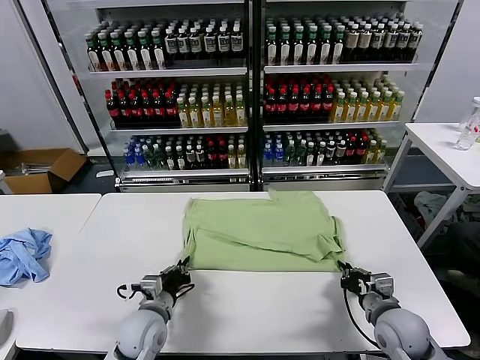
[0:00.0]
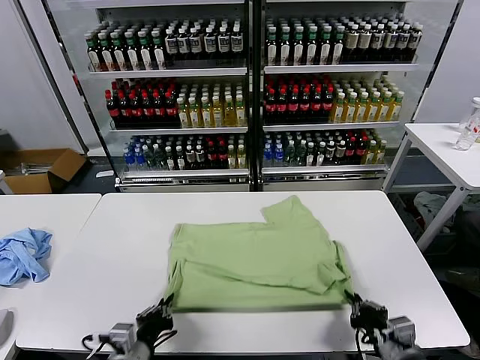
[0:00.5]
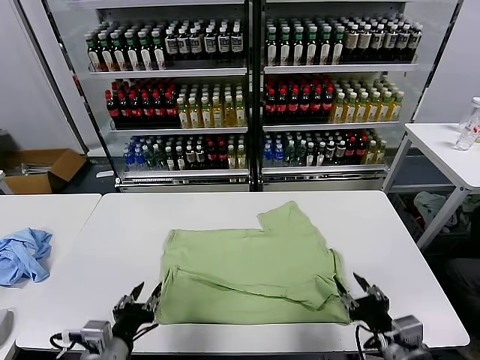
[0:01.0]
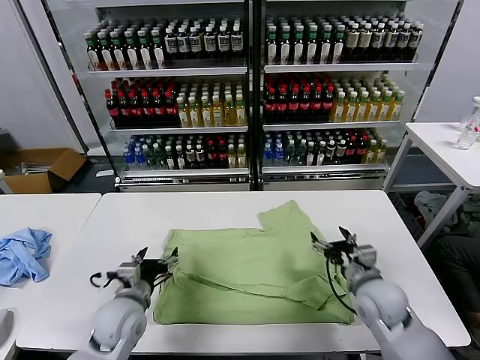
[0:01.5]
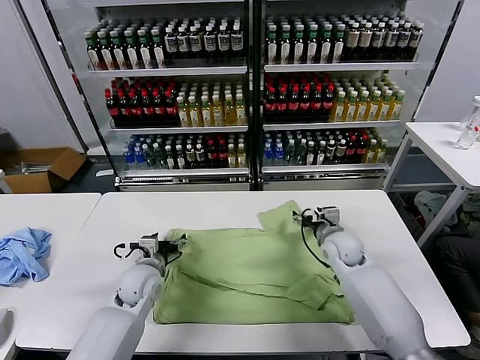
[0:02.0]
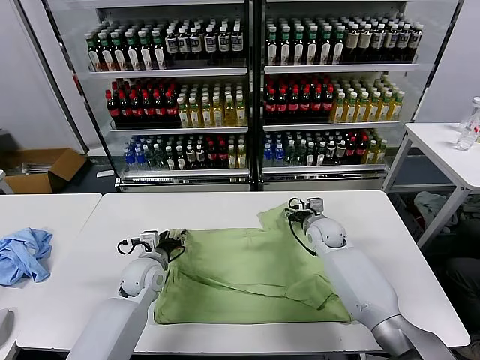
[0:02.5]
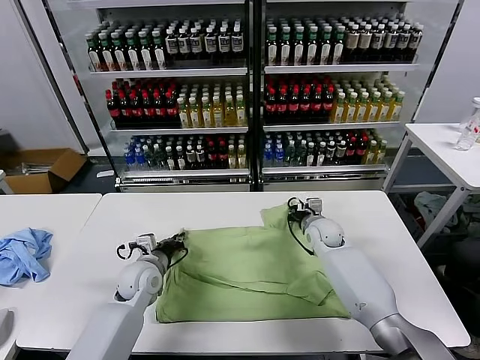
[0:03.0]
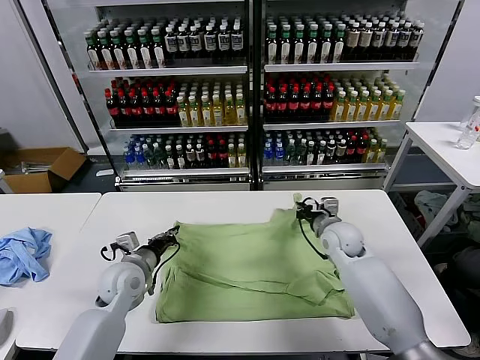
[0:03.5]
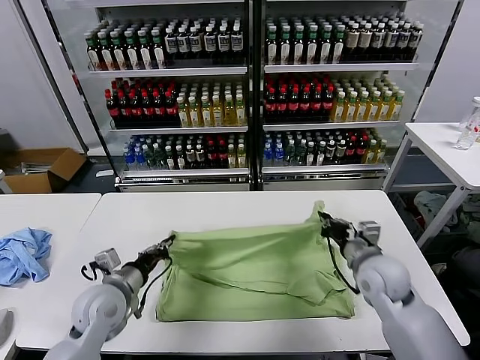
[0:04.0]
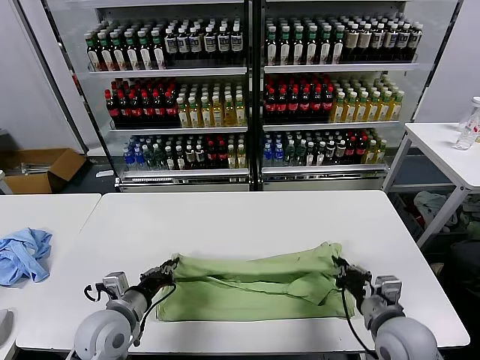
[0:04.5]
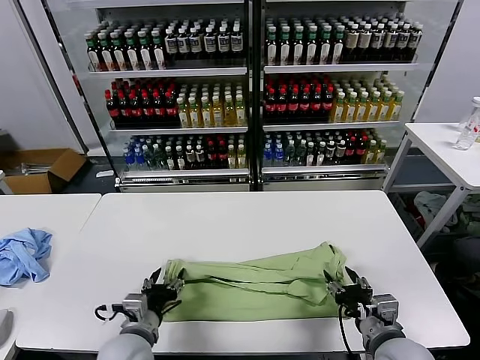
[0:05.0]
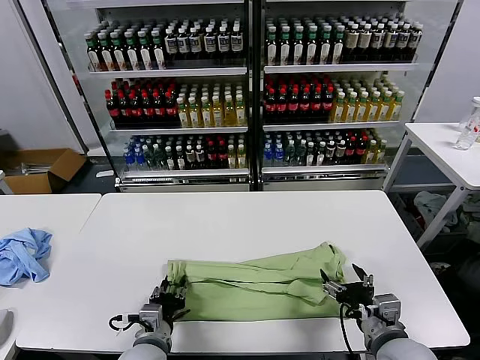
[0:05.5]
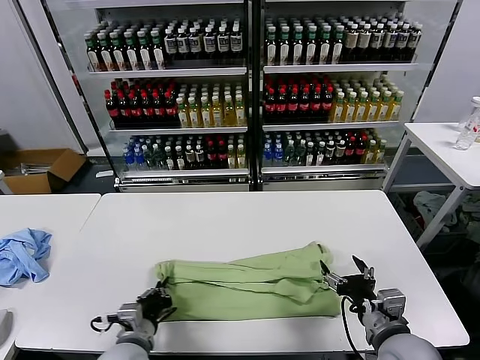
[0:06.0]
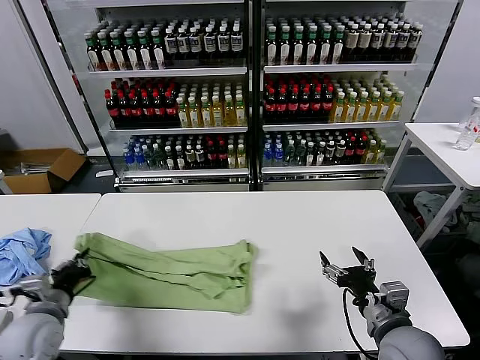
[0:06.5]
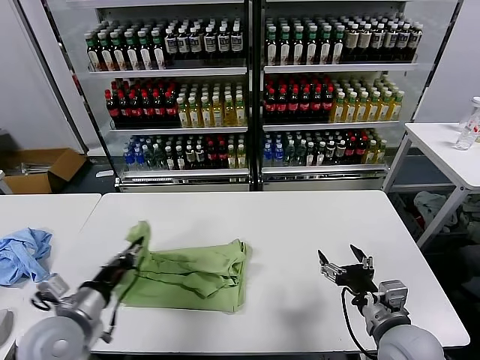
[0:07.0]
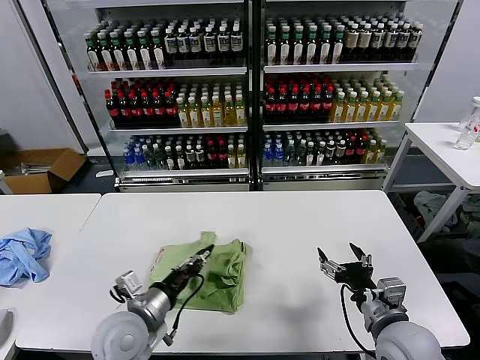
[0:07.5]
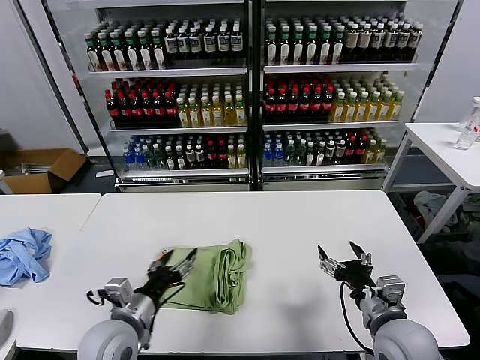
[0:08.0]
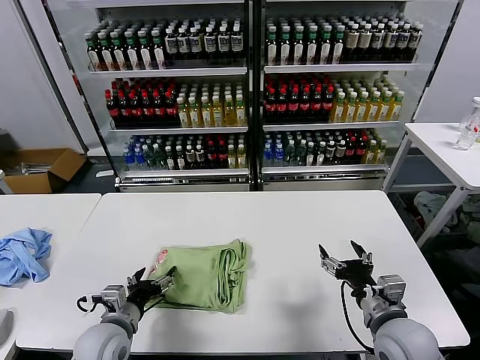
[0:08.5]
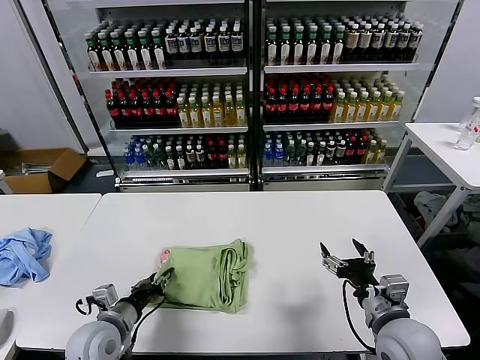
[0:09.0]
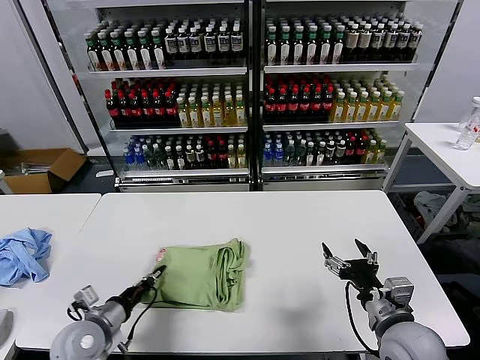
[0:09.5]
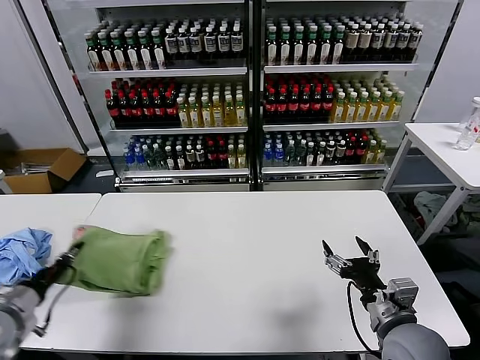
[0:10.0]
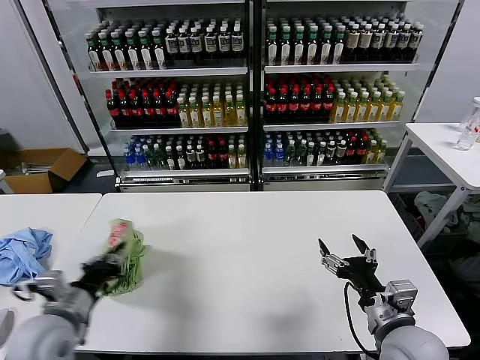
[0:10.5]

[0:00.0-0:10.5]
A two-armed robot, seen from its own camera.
Task of the whole recording: fold and organize the clothes.
Step, 0:01.0 to 0:03.0: use both grippers simultaneously to clamp the upper edge of the clothing fabric.
Step, 0:03.5 to 0:04.5: use both grippers to drag the upper edge of the fabric backward and fold it over the lower edge.
Step, 0:05.0 to 0:05.5: use the left gripper to clamp the left edge of the fabric.
Step, 0:06.0 to 0:07.5: use the left gripper to drag the left edge of the fabric to the left and folds it over the right edge.
0:00.0 to 0:02.0: The right gripper is displaced forward by some 25 cm, and opens its fingers. Meanwhile the left gripper shifts about 10 cm forward, and opens up.
0:02.0 to 0:04.0: The left gripper is displaced backward and upward by about 10 cm, and closes. Meanwhile the right gripper goes roughly 15 cm backward and upward, and closes its fingers.
0:04.0 to 0:06.5: The right gripper shifts approximately 10 cm backward, and opens its fingers, while the left gripper is displaced to the left and backward by some 10 cm, and opens, then closes once more.
0:06.5 to 0:08.5: The left gripper travels to the right by some 10 cm, and opens its fingers.
0:08.5 to 0:10.5: The left gripper travels upward and to the left by about 15 cm, and closes.

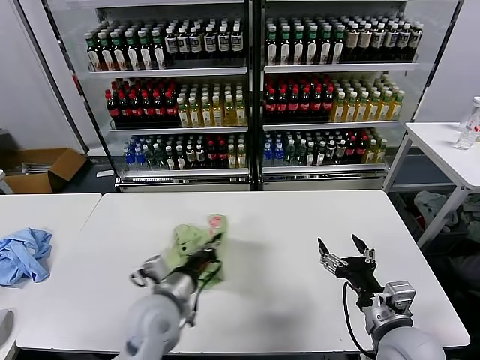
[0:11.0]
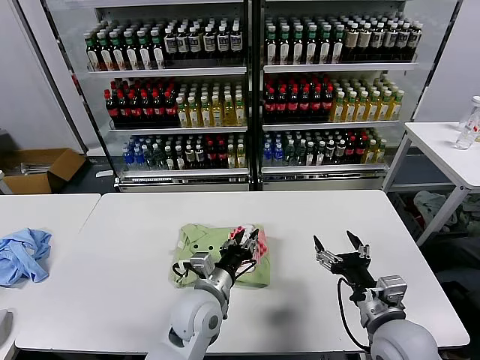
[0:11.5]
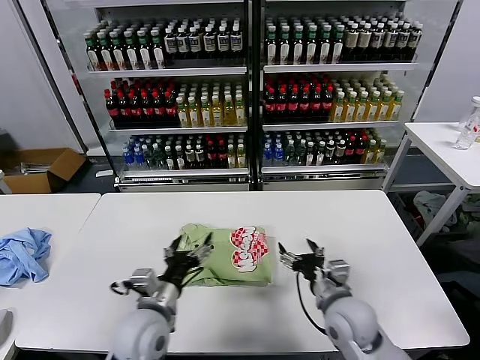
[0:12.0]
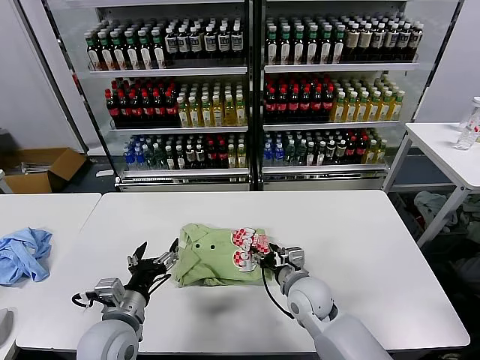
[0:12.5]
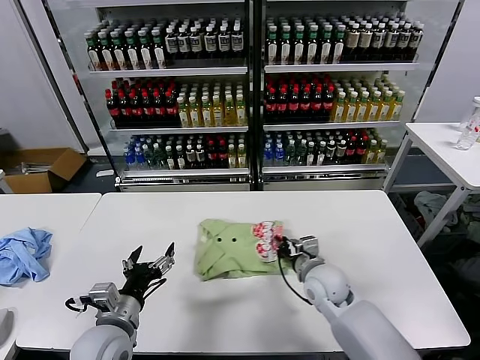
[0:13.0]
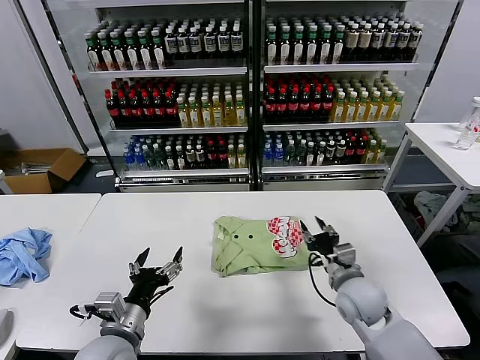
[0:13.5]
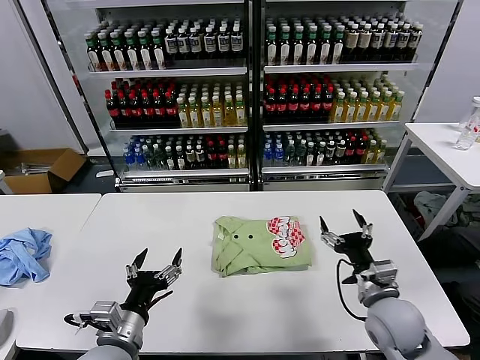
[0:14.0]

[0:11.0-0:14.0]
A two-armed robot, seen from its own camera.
Task of the whole recording: fold and organize the clothes.
Step, 0:12.0 to 0:13.0: Drag the clothes to the center of the table.
0:11.0 to 0:12.5: The right gripper is displaced forward, to the left and downward by some 20 cm. Meanwhile the left gripper shifts roughly 5 cm to the left, and opens up.
0:12.5 to 0:14.0: The right gripper goes some 15 cm to the right and backward, and closes and opens again.
